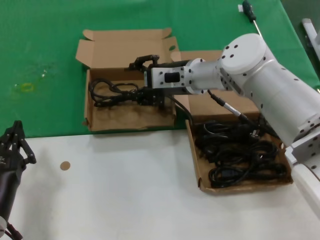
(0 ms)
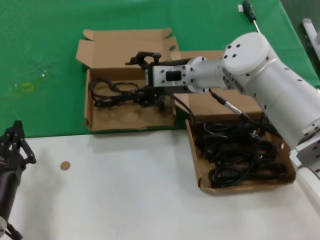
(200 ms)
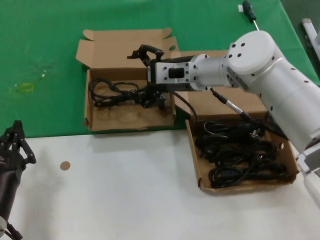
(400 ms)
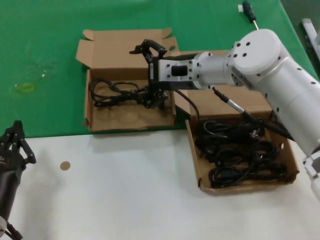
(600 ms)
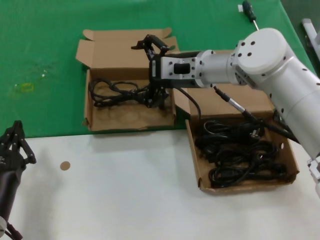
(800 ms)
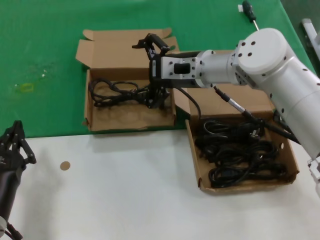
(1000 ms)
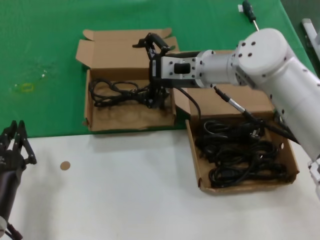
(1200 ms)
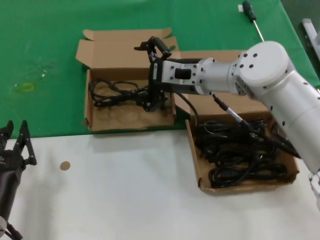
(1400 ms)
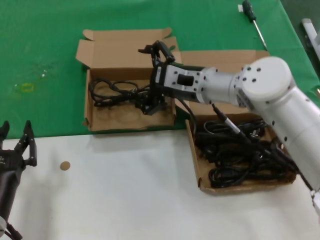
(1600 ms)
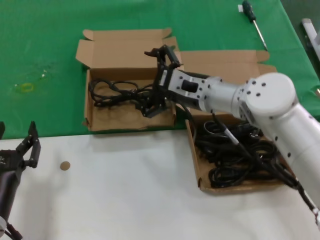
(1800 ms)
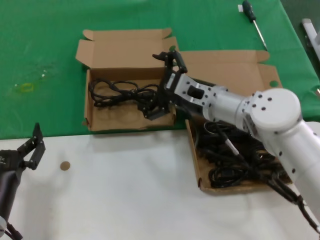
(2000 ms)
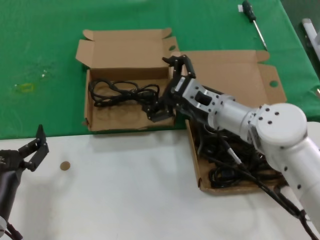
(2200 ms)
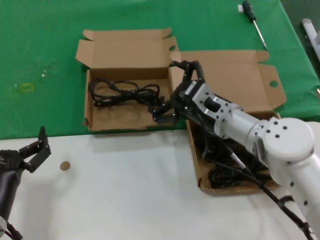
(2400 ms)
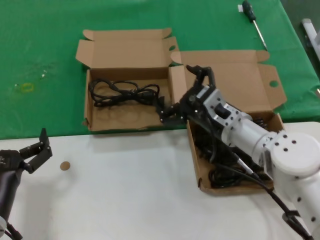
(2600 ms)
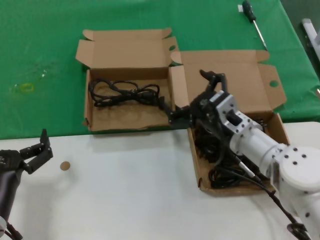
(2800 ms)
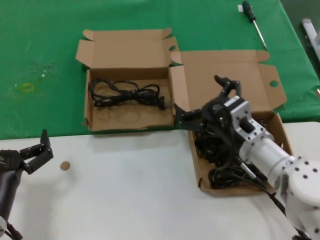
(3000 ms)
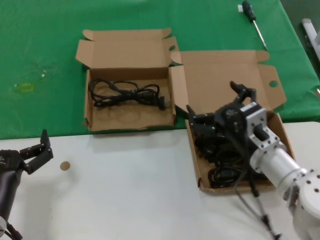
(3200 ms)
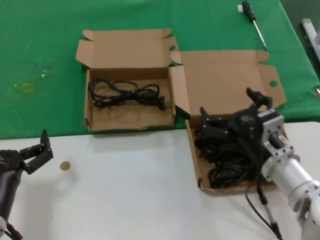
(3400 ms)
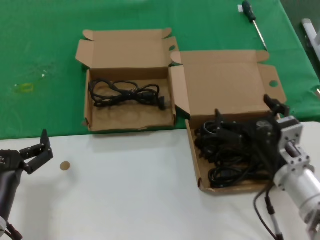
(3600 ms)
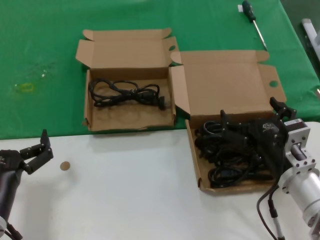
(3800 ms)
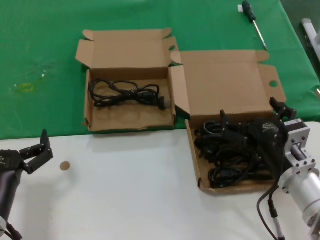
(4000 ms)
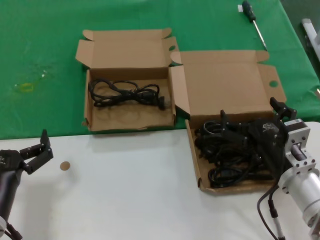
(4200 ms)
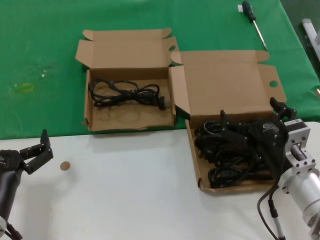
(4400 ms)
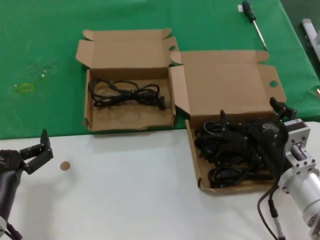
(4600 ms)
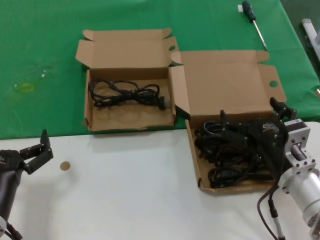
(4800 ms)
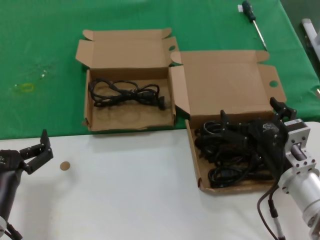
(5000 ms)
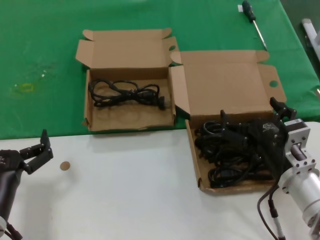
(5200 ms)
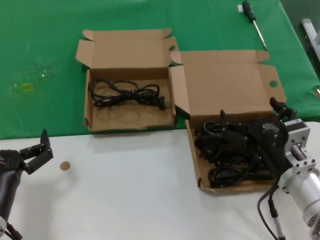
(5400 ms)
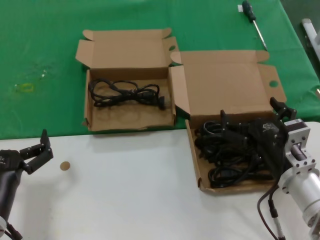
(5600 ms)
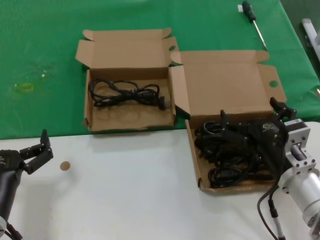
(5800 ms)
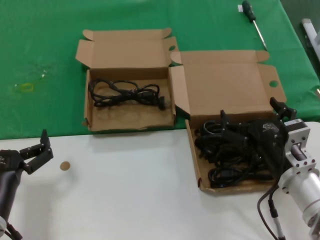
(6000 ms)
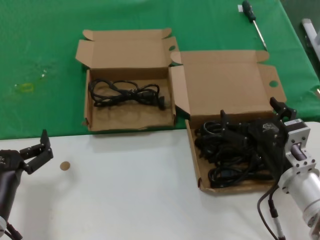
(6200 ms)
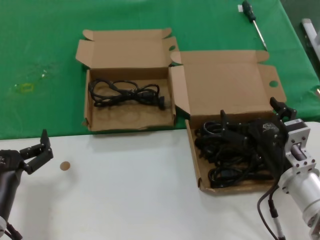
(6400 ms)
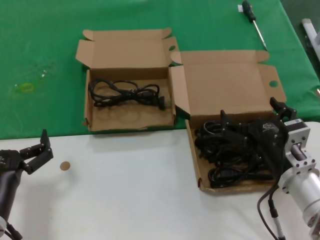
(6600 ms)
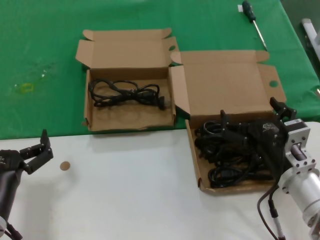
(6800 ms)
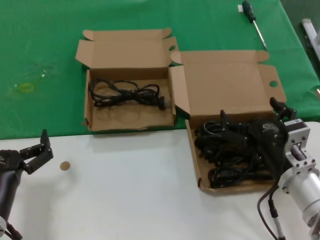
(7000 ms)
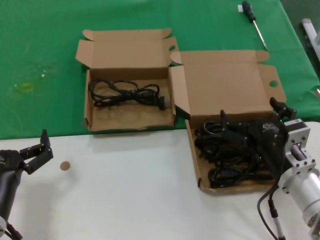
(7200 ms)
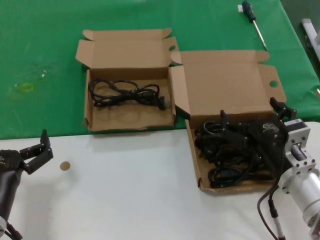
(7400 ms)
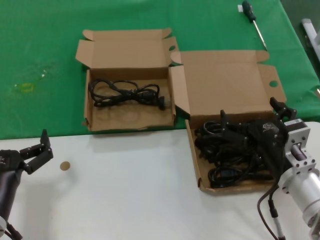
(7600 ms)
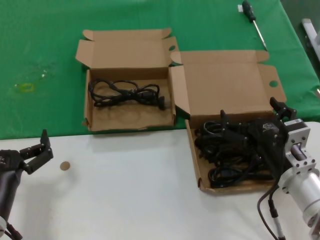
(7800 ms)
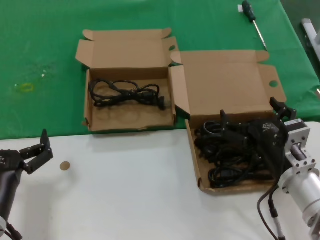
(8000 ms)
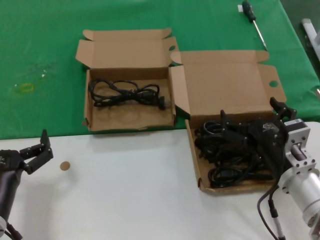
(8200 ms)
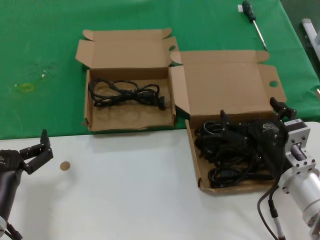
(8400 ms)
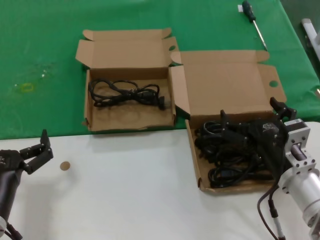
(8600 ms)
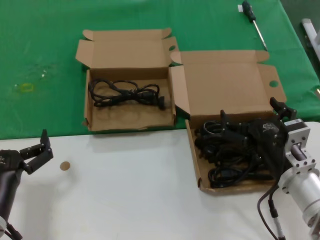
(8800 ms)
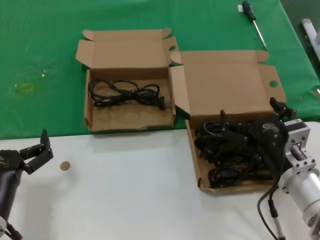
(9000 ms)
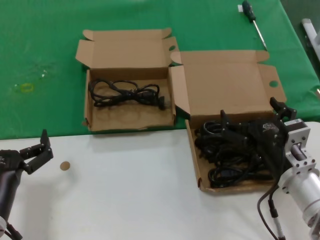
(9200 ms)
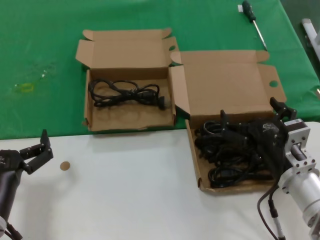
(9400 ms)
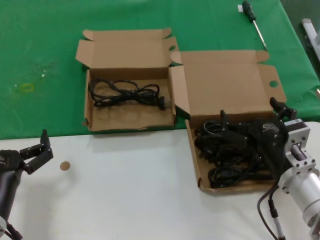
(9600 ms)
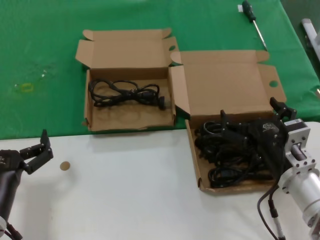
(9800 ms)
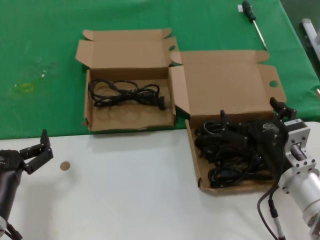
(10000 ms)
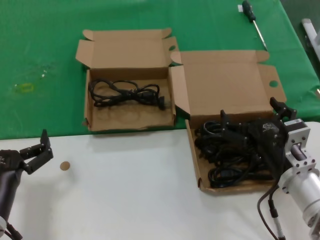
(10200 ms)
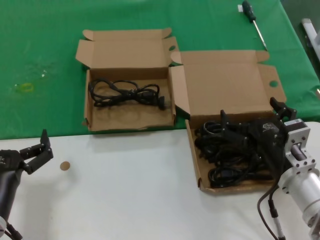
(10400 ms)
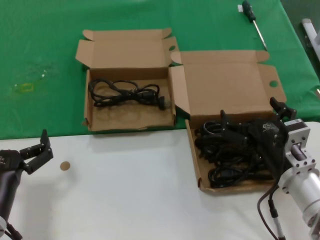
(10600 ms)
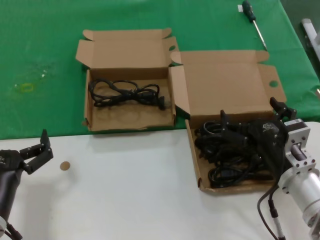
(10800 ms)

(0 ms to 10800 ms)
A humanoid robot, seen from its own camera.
Task of the whole recording: take the parts from the box containing them and put them into an empty box.
0 ms - 1600 ms: The hands move only a little.
1600 ms - 3000 ms: The right hand travels backward, downward and to the right by approximately 15 cm.
3000 ms - 4600 ms: The right hand travels backward by approximately 10 cm.
4600 ms - 10800 ms: Both hands stay about where they are.

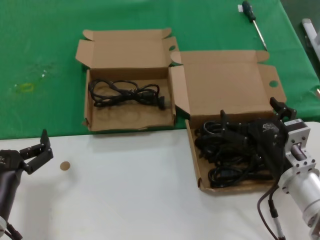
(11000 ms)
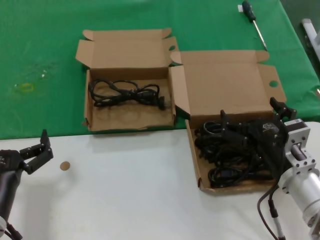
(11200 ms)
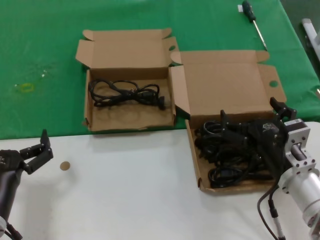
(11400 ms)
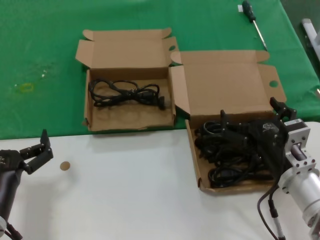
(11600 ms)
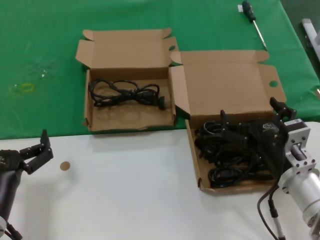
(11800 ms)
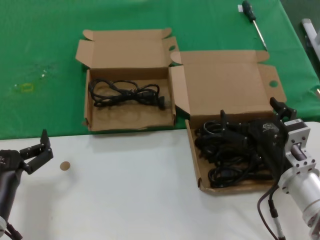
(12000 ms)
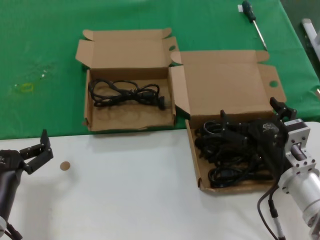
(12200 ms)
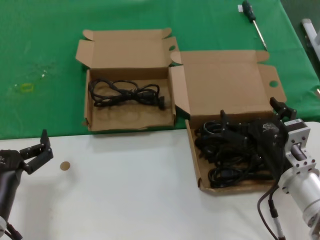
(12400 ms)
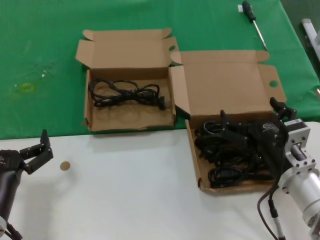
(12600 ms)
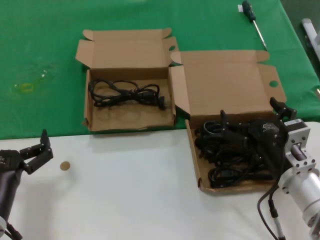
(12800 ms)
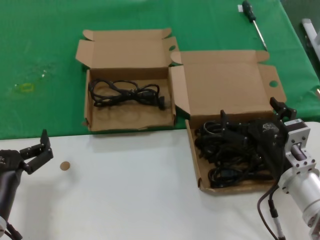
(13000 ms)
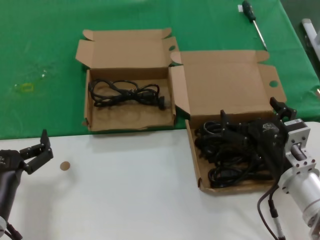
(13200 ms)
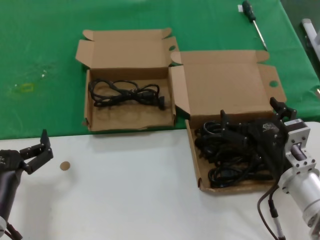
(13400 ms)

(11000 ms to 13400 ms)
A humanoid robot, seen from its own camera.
Task of the whole recording: take the parts from the box containing them and put them into an empty box.
11000 ms - 13400 ms: Both hands stay put.

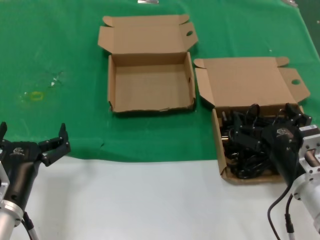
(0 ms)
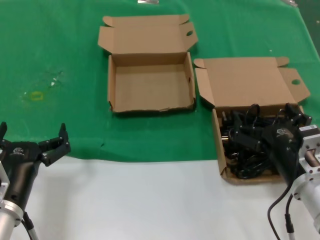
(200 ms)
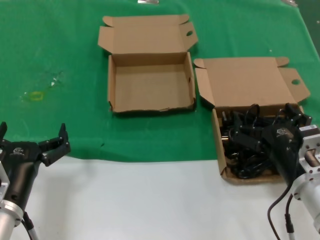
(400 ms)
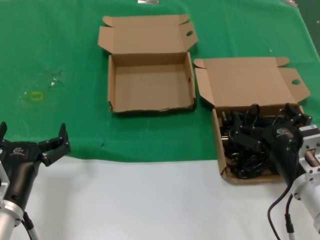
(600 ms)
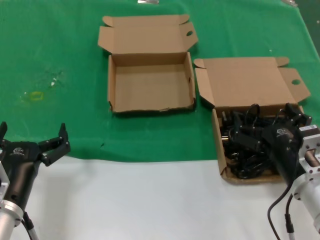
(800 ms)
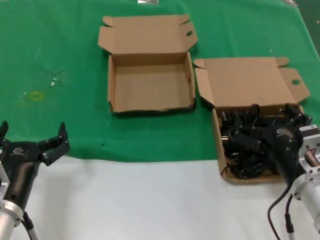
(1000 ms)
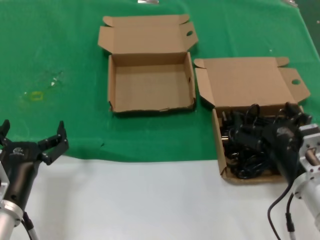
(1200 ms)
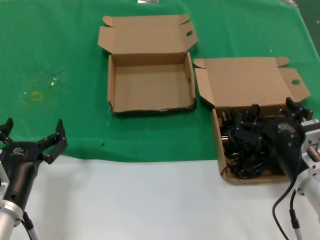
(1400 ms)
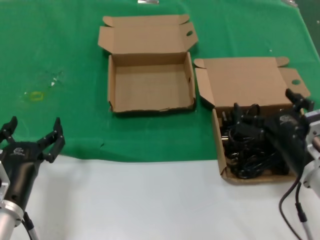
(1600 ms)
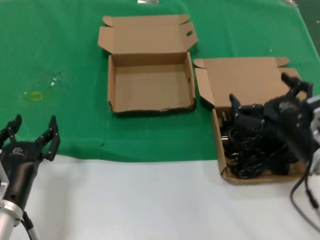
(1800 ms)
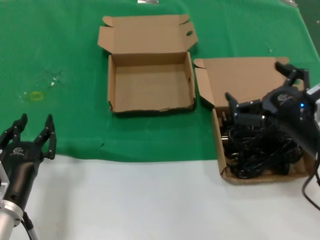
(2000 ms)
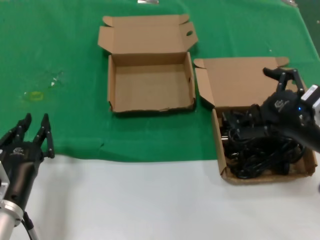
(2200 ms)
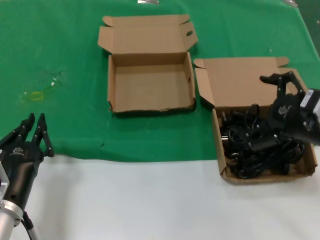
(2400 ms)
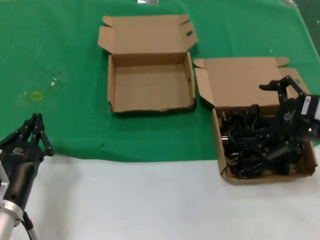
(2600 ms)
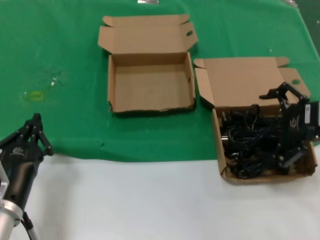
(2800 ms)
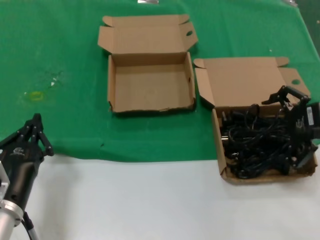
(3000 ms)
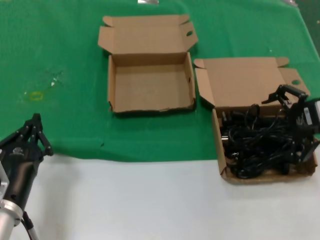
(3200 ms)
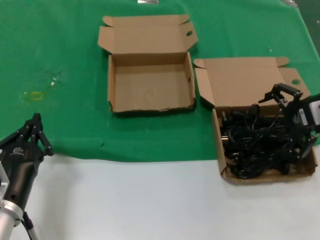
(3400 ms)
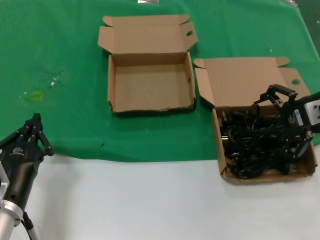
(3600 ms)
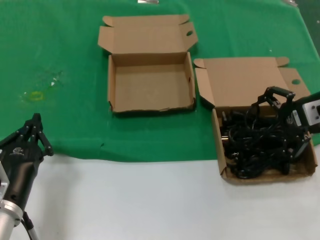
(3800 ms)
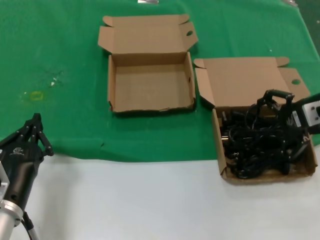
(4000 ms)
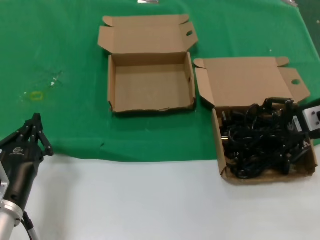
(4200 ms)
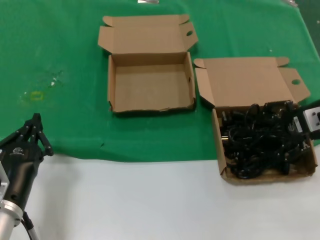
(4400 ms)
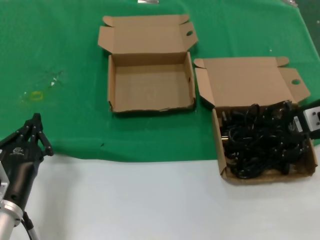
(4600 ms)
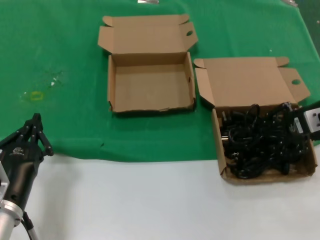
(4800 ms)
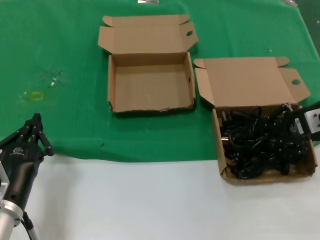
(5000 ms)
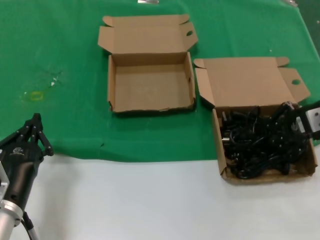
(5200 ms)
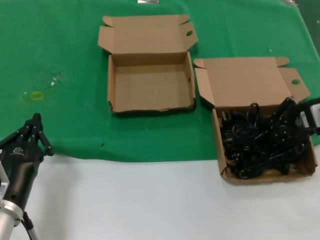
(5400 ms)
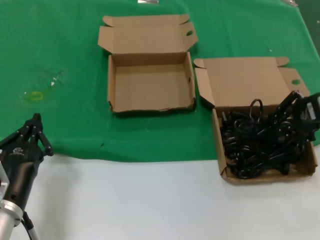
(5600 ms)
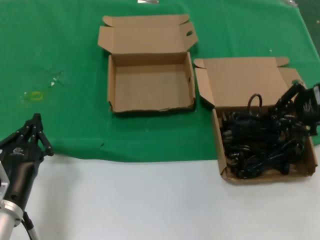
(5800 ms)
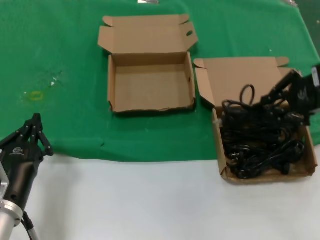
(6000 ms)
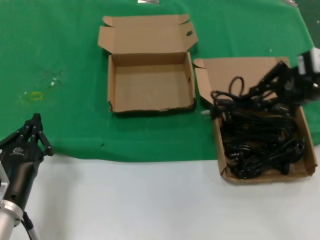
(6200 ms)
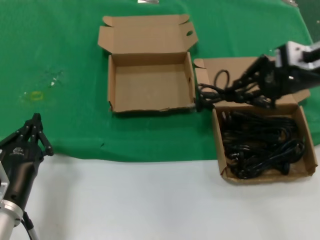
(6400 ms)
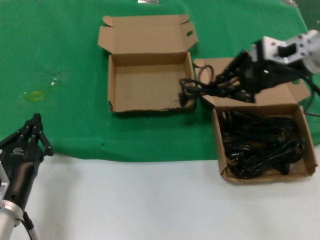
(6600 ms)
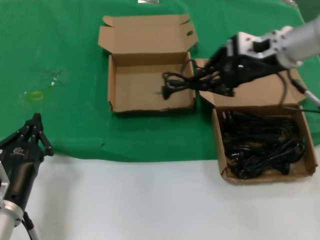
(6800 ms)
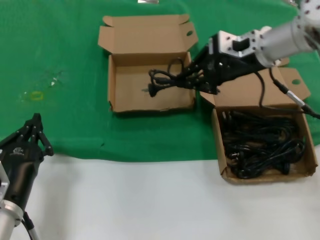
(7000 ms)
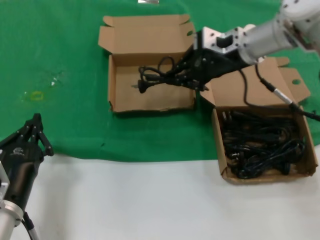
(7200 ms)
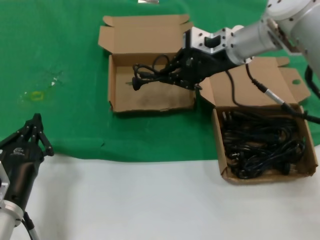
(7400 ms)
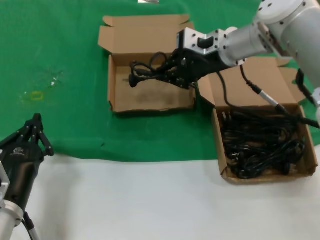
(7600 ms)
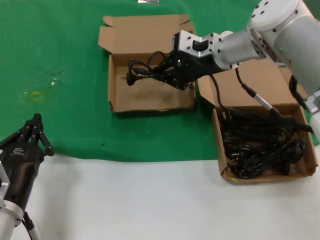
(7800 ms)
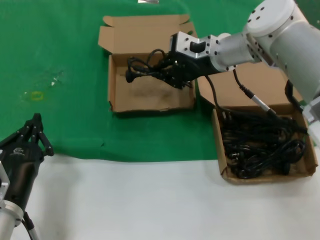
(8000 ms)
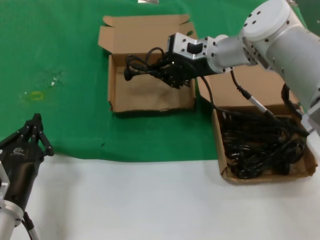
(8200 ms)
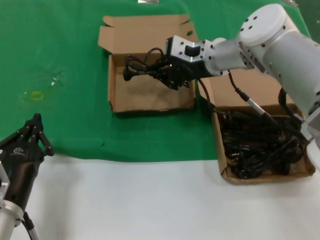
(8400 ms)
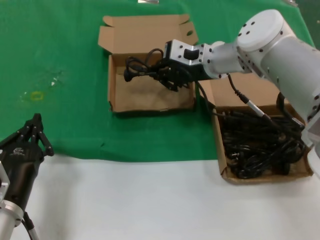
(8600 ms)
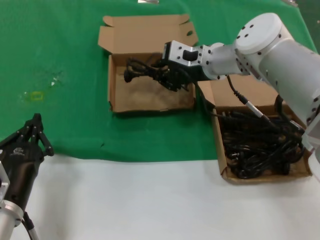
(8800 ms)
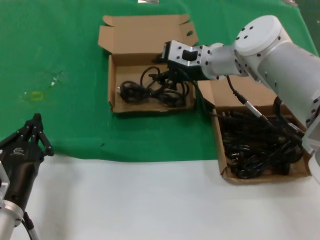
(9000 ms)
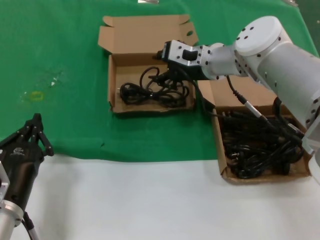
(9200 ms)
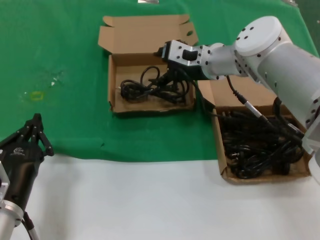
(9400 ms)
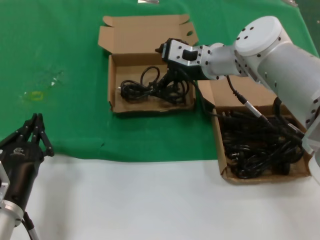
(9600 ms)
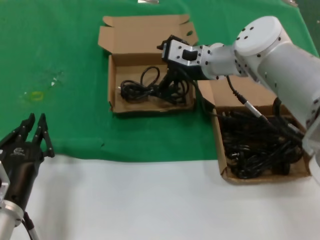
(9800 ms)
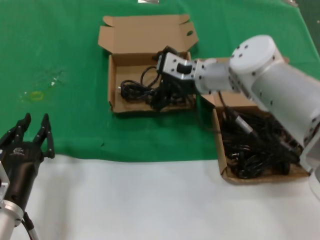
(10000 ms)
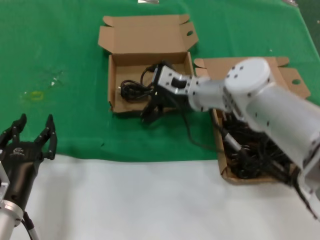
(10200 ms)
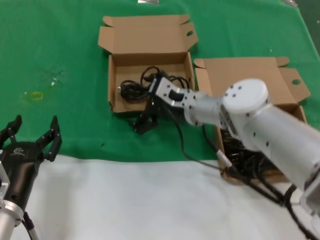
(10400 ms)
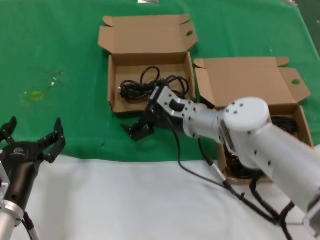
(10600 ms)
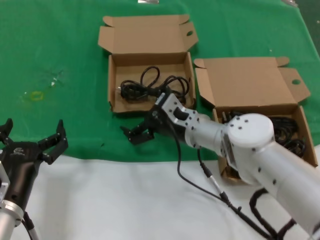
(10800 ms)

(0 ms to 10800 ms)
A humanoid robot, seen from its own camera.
Task of the whole recording: take the parts from the box containing them and put them into an empty box.
Step, 0 ms - 5000 ms: Grasp the data cable.
Step, 5200 ms - 8800 ms: Place the data cable in the another box.
0 ms - 1600 ms: The hands move only a little.
1600 ms - 3000 ms: The right hand goes approximately 20 cm upward, to the right and forward.
3000 ms - 4600 ms: The right hand travels forward by roughly 5 cm.
4600 ms - 6200 ms: The right hand travels upward by approximately 10 cm.
6200 ms - 7800 ms: The right hand heads to the left and forward, covering approximately 25 cm.
7800 ms - 9200 ms: The hands move only a little.
9200 ms - 10800 ms: The right hand travels downward and backward by approximately 15 cm.
